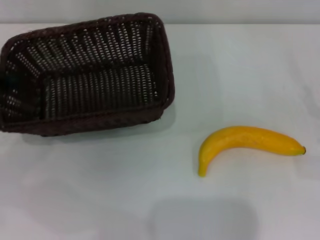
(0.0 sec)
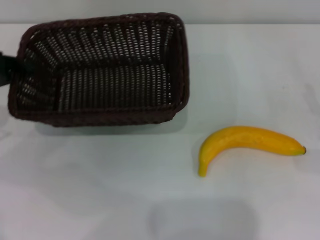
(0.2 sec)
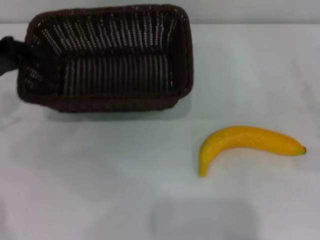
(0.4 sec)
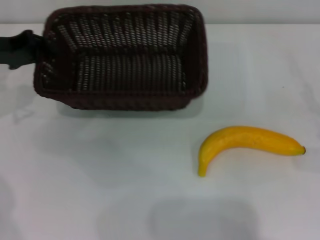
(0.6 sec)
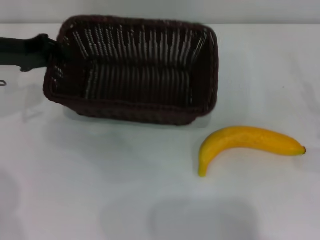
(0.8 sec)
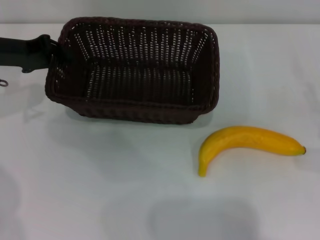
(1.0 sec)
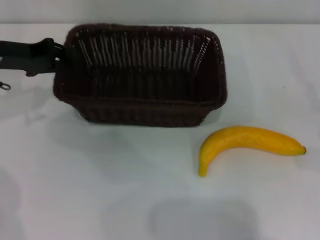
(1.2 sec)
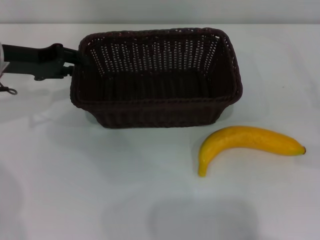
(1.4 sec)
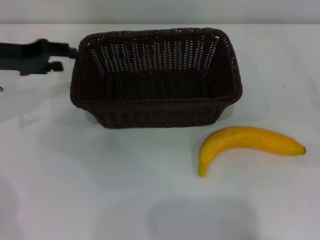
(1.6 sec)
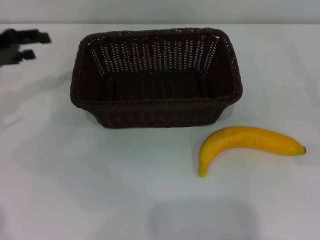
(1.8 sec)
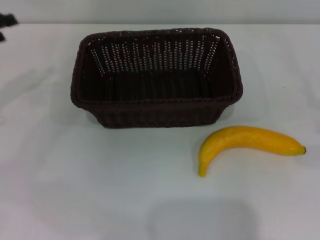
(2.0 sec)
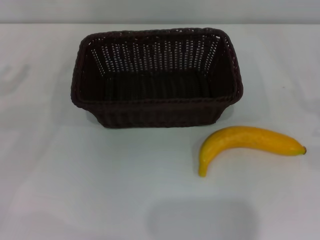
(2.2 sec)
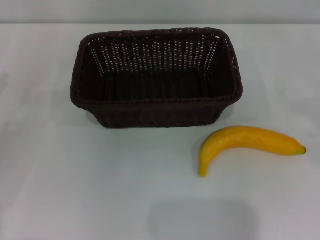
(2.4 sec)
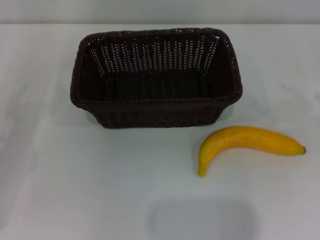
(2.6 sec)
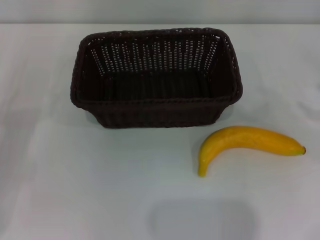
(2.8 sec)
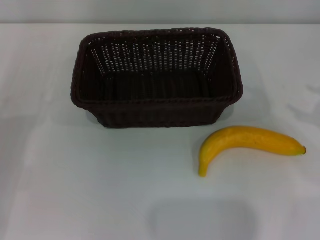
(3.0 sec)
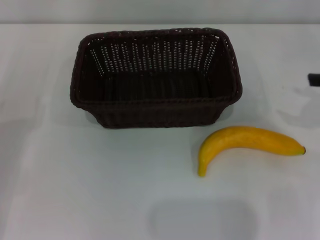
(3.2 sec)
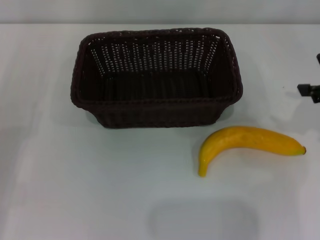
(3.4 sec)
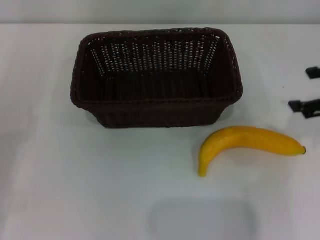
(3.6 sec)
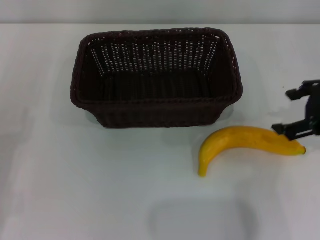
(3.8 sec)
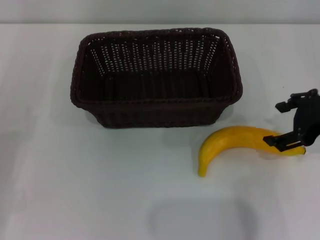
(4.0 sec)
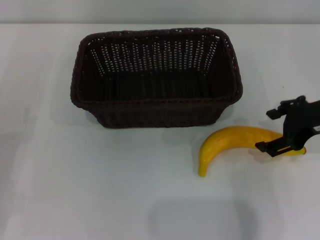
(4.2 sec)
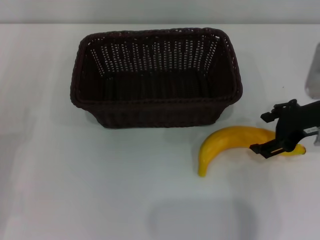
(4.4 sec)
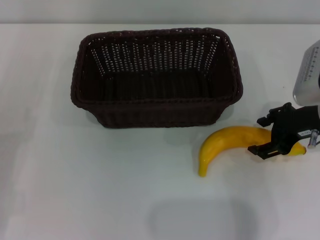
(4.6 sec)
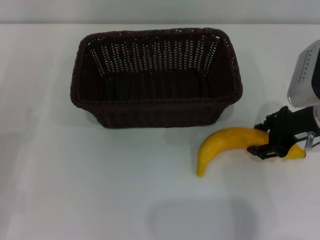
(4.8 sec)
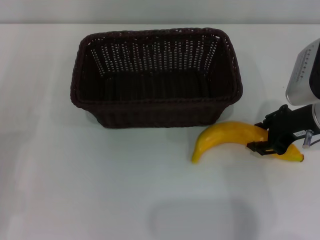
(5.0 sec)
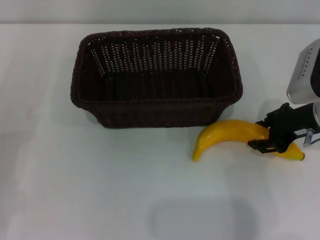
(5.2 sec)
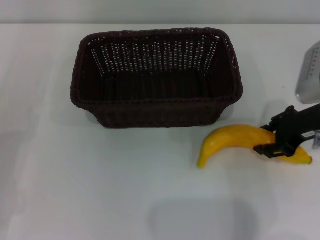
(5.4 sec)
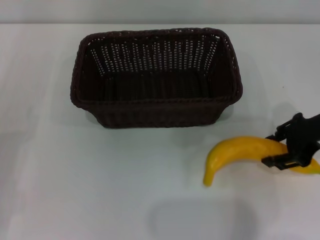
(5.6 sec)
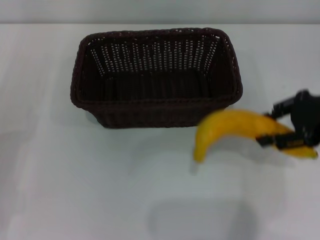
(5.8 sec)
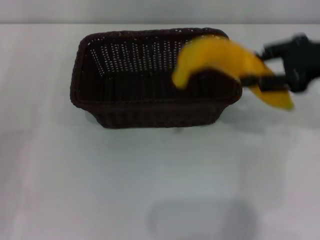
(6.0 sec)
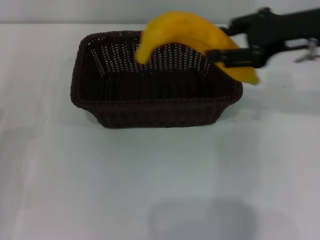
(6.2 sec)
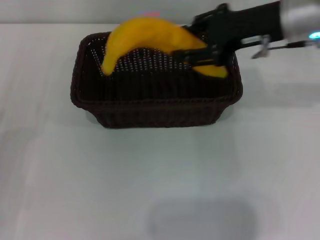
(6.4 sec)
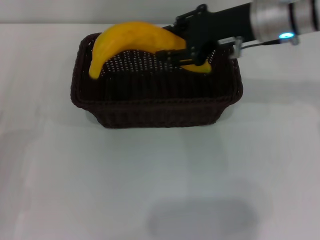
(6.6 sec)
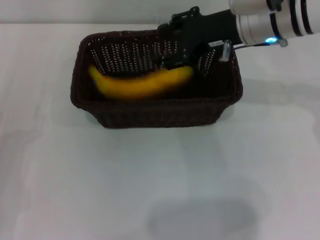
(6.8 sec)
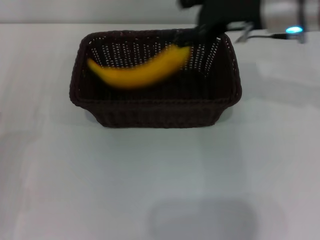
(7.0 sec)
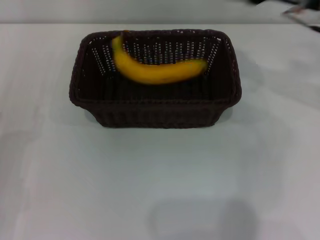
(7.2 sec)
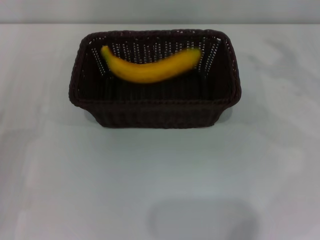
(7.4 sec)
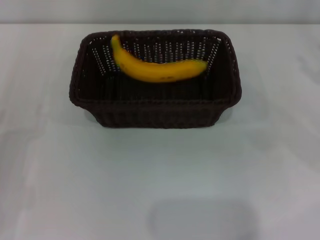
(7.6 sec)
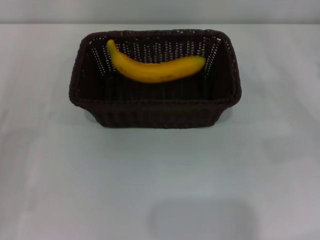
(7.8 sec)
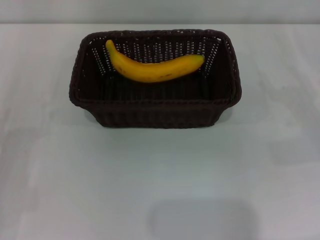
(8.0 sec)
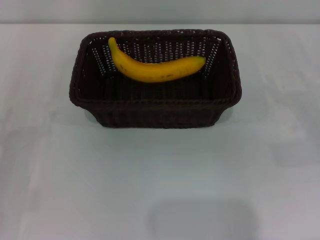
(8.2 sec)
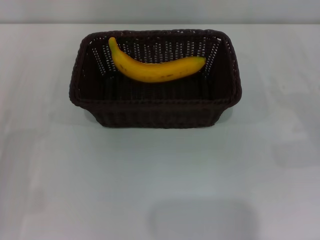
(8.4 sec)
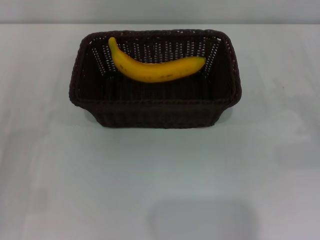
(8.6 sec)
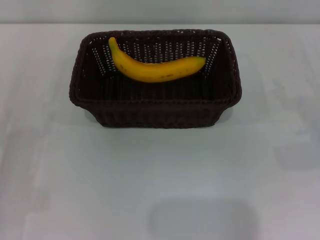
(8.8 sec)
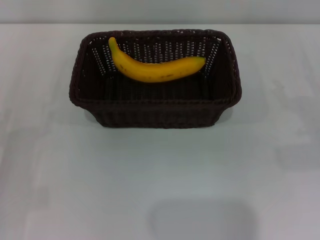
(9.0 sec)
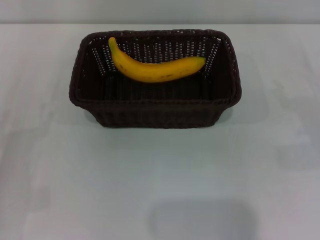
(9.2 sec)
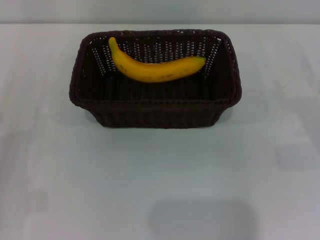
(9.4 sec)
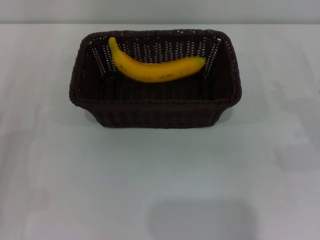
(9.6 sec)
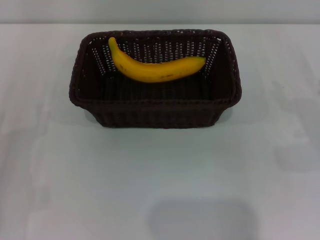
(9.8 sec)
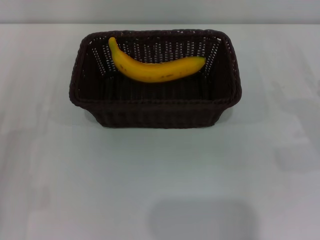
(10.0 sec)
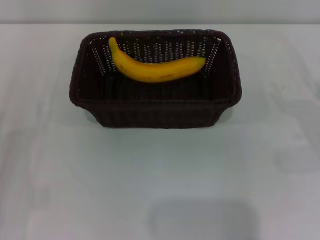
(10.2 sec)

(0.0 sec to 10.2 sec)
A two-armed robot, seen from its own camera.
Step, 0.0 sec - 1.6 sec: Place the dark basket in the center of view with the left gripper.
Step, 1.8 sec - 5.6 sec: Pick up the banana with the right gripper.
Step, 5.8 sec - 7.0 sec: Place the banana into the dark basket with the right gripper.
0.0 sec - 1.4 sec: The left gripper goes approximately 10 cm to the right and forward.
1.4 sec - 3.0 sec: The left gripper shifts some 20 cm backward, downward and to the left, and opens.
3.0 sec - 4.4 sec: The right gripper shifts approximately 15 cm to the left.
4.4 sec - 5.8 sec: The right gripper closes up.
5.8 sec - 7.2 sec: The right gripper is displaced forward by roughly 10 cm, travels to the left and back again, about 15 cm each way, and opens its fingers.
7.2 sec - 8.8 sec: The right gripper travels downward, to the right and backward by approximately 25 cm.

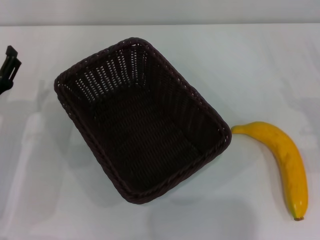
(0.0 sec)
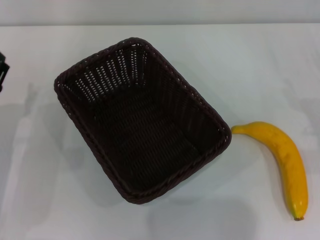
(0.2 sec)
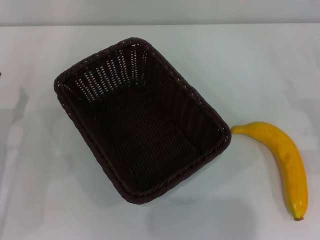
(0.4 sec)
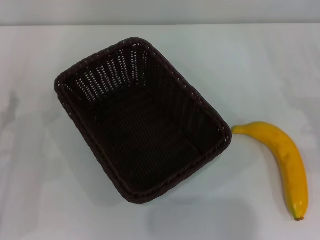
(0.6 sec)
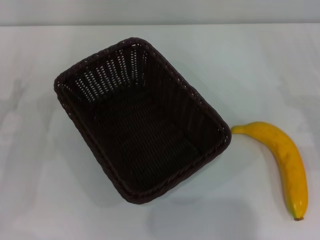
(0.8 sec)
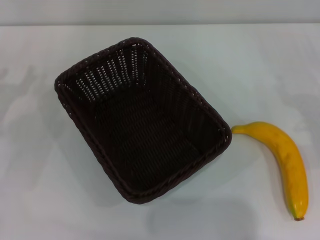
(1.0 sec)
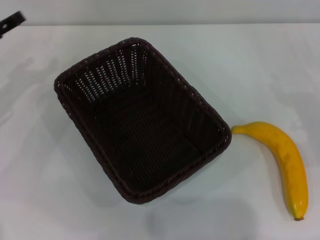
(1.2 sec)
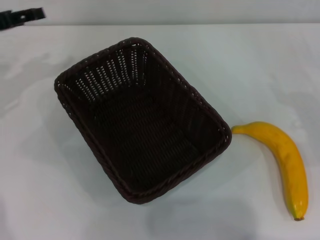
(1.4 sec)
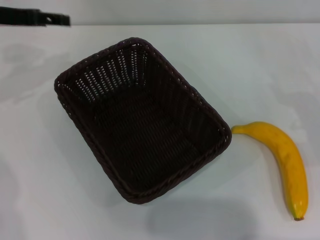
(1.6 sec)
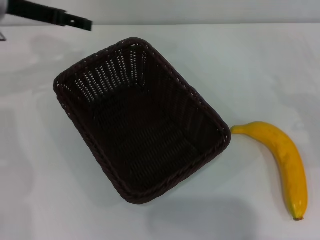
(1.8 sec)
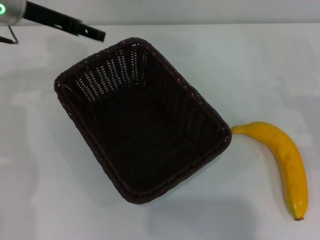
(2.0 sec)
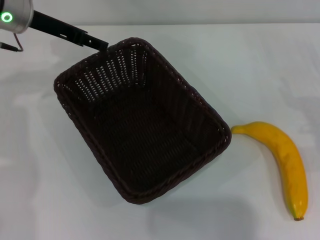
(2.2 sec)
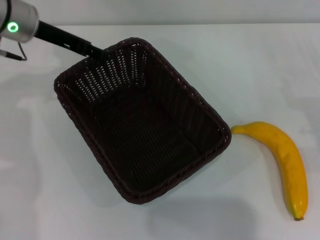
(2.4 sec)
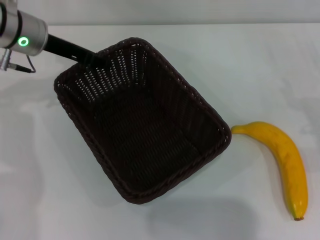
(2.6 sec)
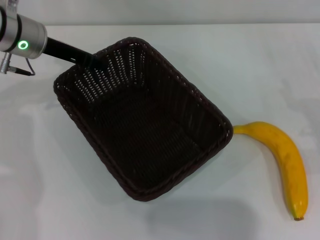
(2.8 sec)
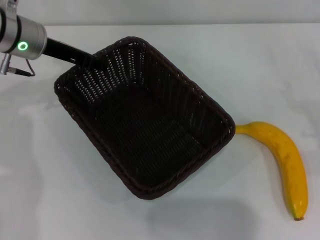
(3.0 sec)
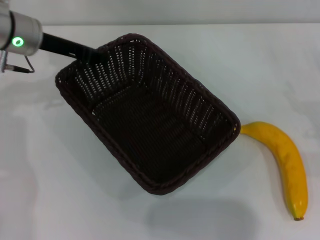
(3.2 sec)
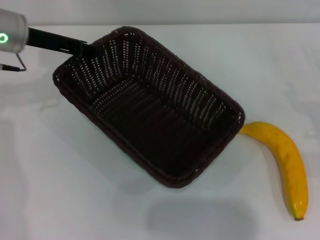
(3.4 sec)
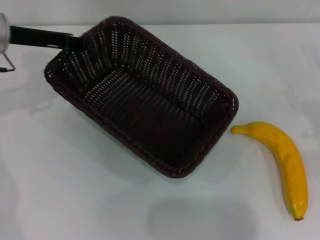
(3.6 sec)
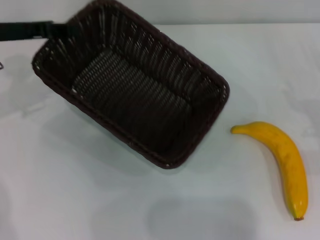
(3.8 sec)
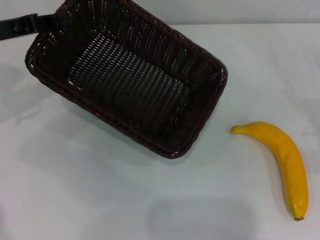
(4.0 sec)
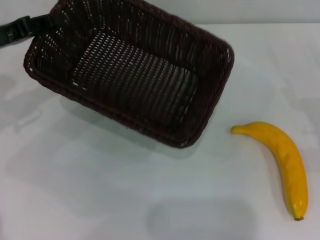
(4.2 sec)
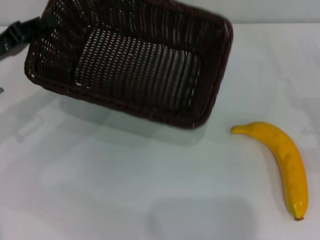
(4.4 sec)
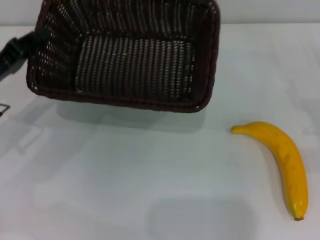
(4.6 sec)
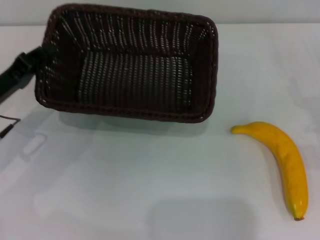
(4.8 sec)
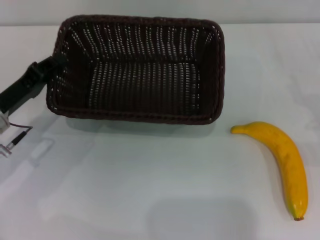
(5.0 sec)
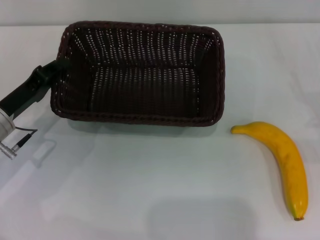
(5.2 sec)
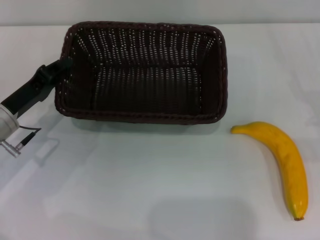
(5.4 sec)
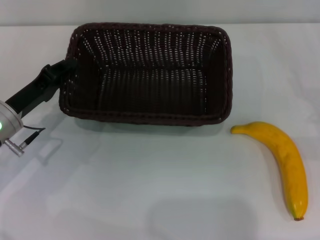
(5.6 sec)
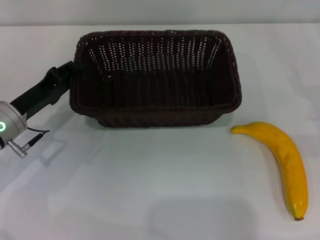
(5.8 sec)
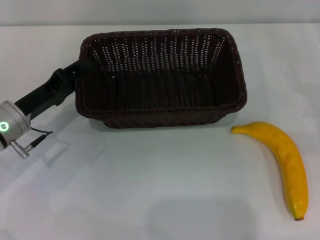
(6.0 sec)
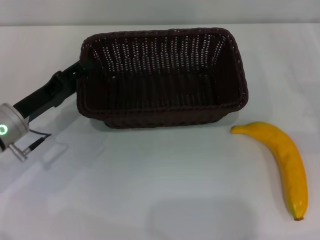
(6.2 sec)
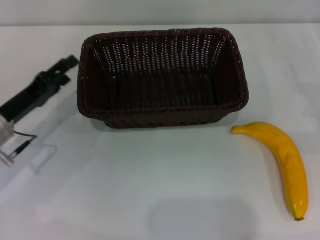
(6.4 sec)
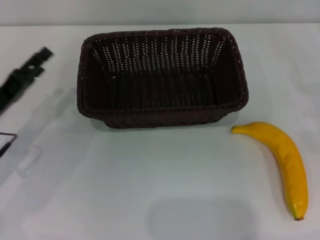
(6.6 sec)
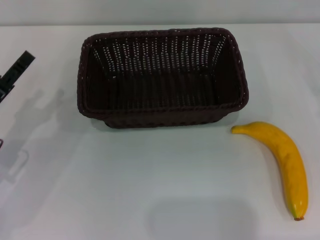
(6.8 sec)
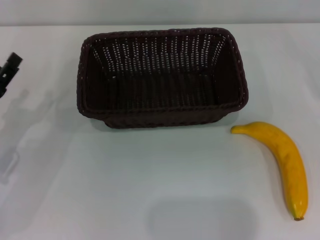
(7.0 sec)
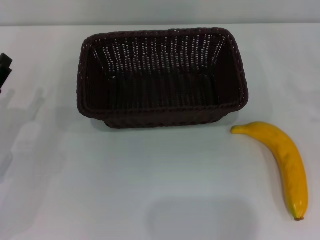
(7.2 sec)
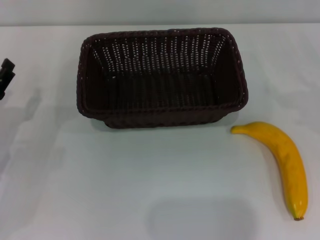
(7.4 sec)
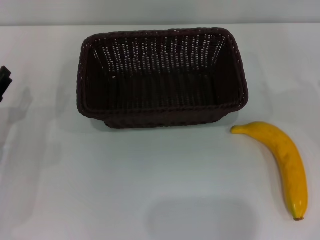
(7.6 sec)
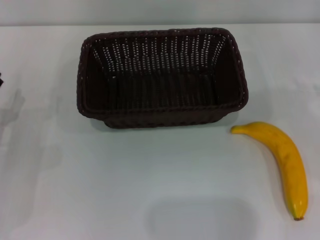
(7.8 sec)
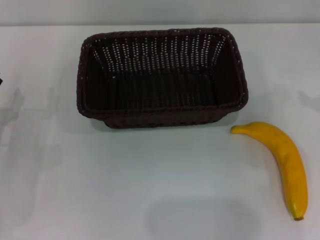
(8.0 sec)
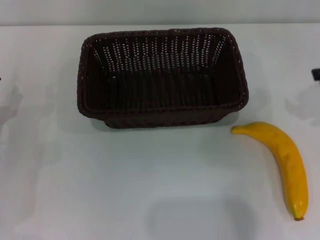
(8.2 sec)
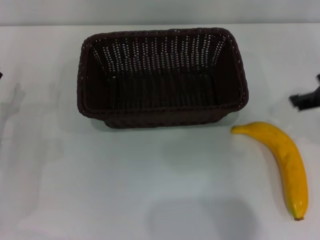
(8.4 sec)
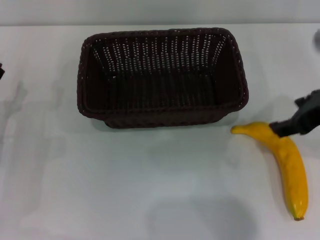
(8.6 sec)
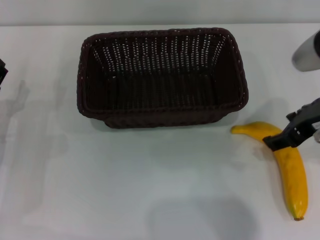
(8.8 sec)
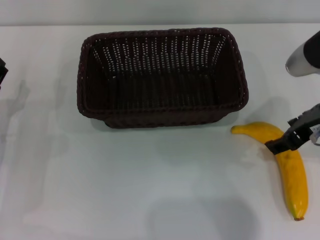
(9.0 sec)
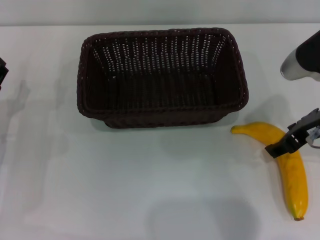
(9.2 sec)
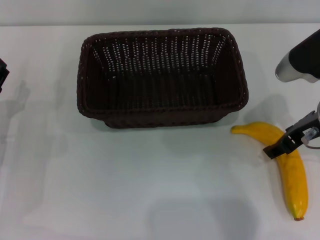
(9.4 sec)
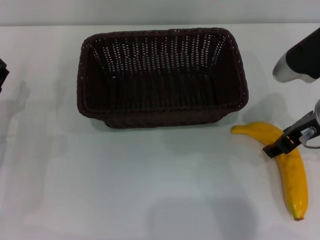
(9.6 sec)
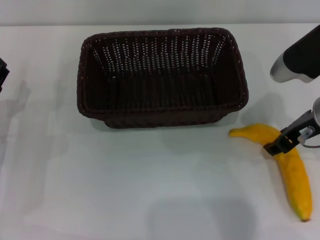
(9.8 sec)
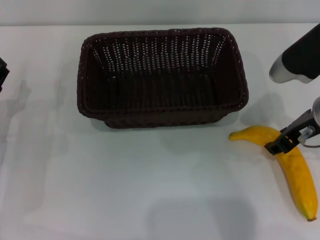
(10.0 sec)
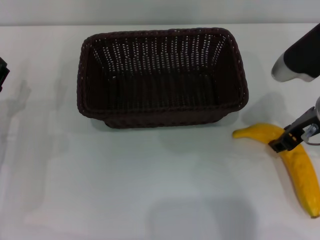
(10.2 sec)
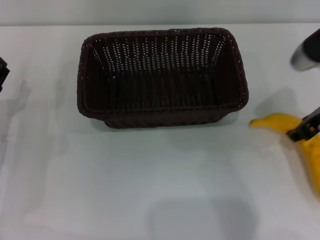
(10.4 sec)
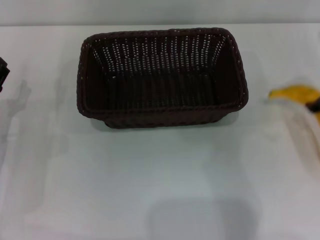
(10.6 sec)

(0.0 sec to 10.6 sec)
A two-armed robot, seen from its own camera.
Step, 0.0 sec - 3.8 sec: Pick up the dark basket with the left gripper.
Step, 4.0 sec - 6.4 sec: Place the dark basket in the center of view with the left gripper.
0.0 sec - 1.6 sec: The left gripper is displaced upward and forward by roughly 20 cm.
1.6 sec - 3.0 sec: The left gripper is displaced to the right by approximately 10 cm, and closes its fingers.
3.0 sec - 4.6 sec: The left gripper goes about 15 cm backward, to the left and downward.
4.6 sec - 6.0 sec: The left gripper ends up some 5 cm from where it was.
6.0 sec - 7.6 sec: The left gripper moves to the left, some 5 cm, and opens up.
7.6 sec - 9.0 sec: The right gripper travels to the left by approximately 20 cm.
9.0 sec - 10.6 sec: The right gripper is displaced to the right by roughly 5 cm, and closes up.

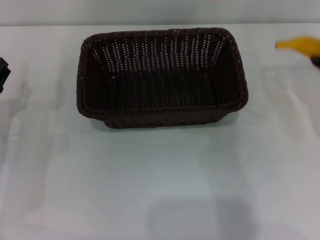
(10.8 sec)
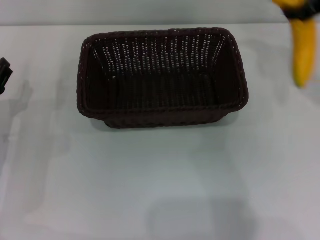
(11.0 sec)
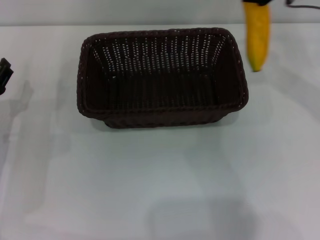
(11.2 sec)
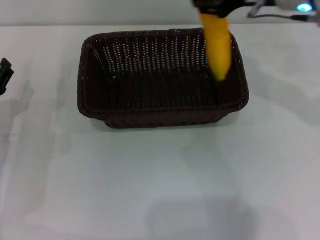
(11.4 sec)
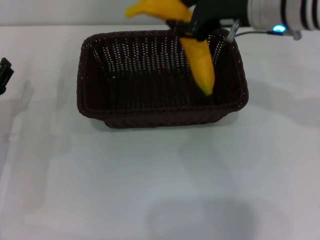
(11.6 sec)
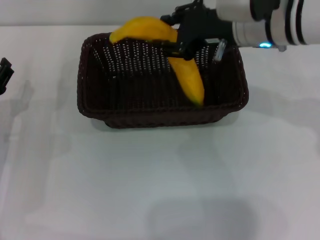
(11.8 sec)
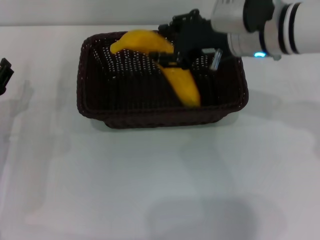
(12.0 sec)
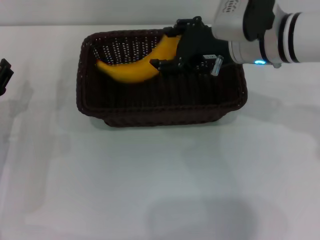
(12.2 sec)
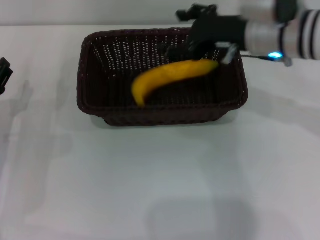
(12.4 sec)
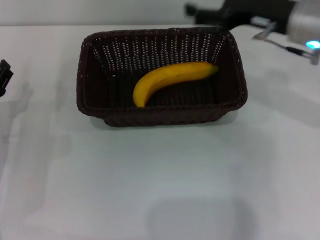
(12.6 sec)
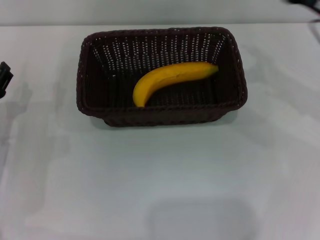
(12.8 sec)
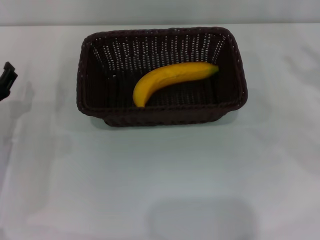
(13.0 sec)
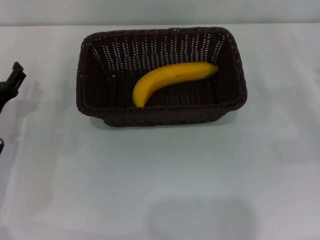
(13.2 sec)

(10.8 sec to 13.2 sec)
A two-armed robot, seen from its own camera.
Step, 10.8 sec - 12.4 sec: Place the banana into the dark basket with the right gripper.
10.8 sec - 12.0 sec: The right gripper is displaced to the left by some 15 cm.
12.0 sec - 13.2 sec: The right gripper travels to the right and downward by approximately 25 cm, and opens up.
